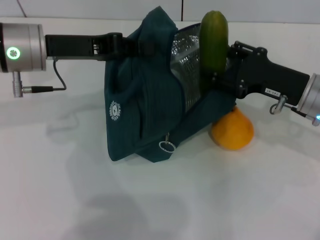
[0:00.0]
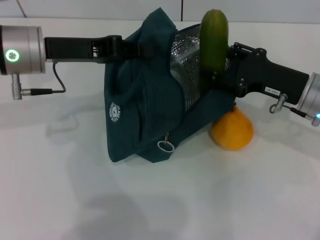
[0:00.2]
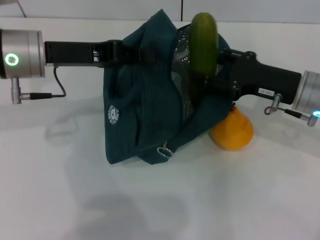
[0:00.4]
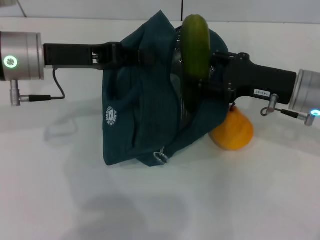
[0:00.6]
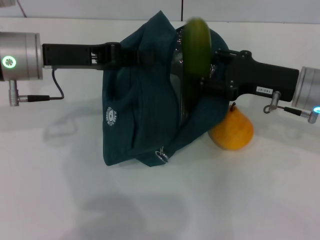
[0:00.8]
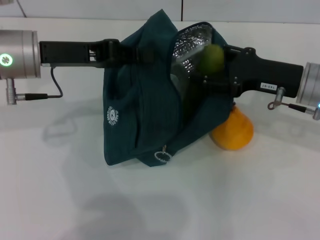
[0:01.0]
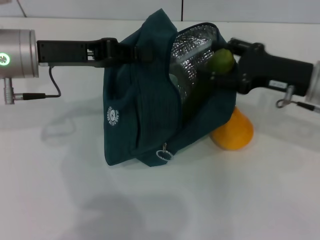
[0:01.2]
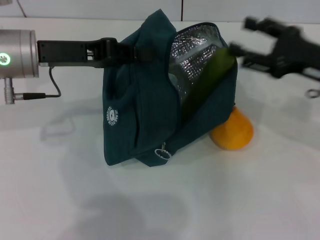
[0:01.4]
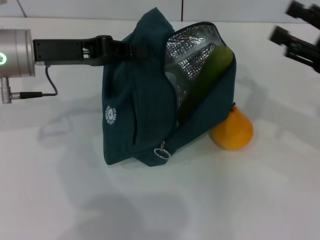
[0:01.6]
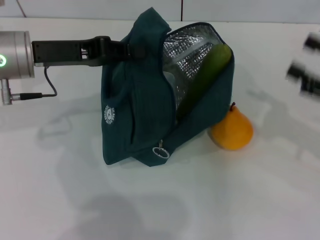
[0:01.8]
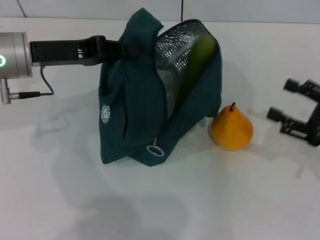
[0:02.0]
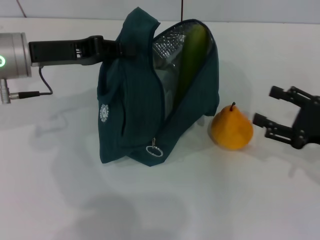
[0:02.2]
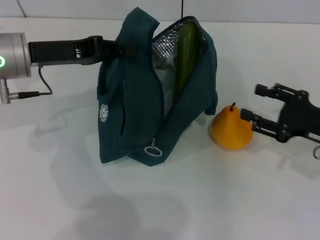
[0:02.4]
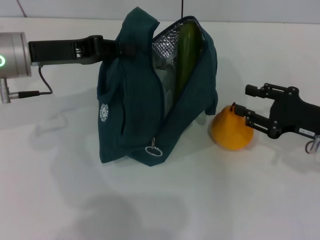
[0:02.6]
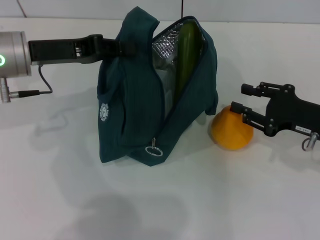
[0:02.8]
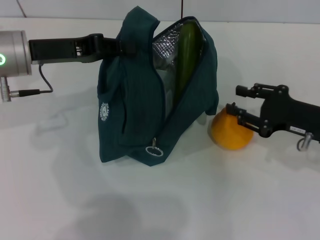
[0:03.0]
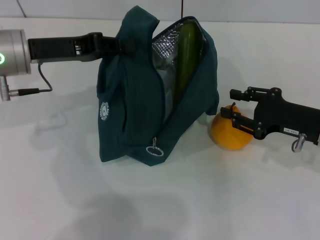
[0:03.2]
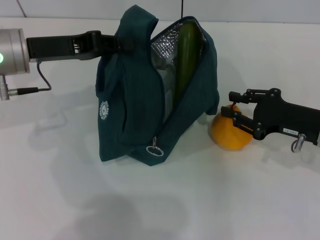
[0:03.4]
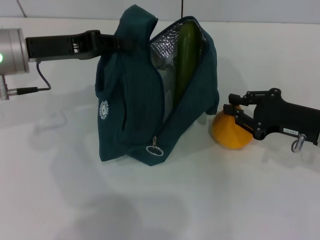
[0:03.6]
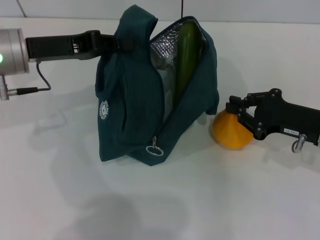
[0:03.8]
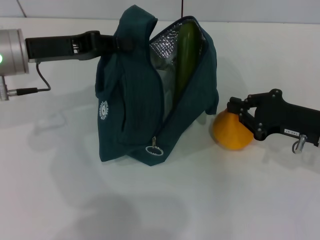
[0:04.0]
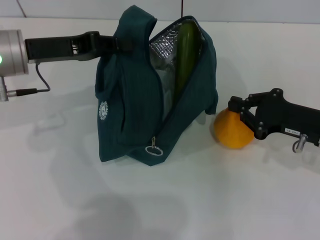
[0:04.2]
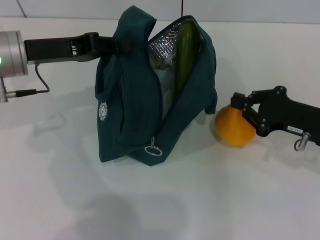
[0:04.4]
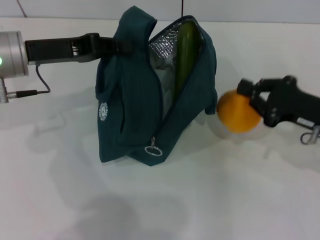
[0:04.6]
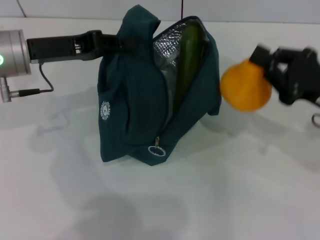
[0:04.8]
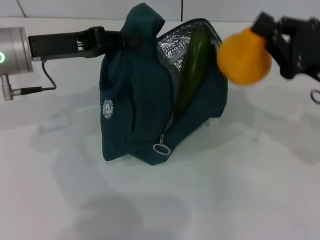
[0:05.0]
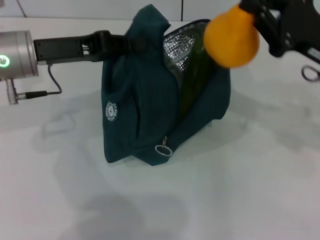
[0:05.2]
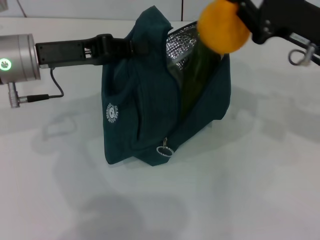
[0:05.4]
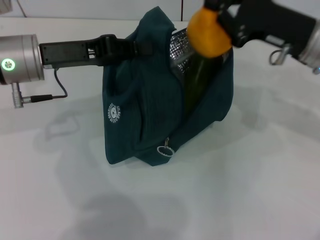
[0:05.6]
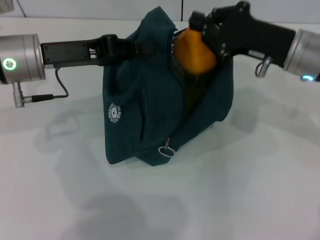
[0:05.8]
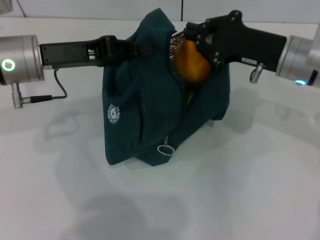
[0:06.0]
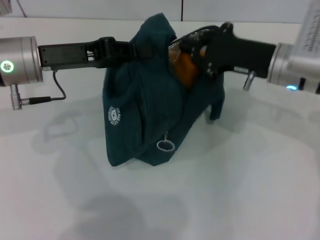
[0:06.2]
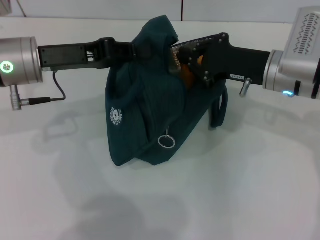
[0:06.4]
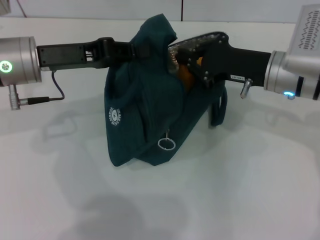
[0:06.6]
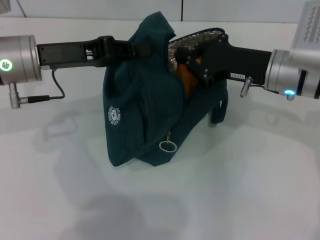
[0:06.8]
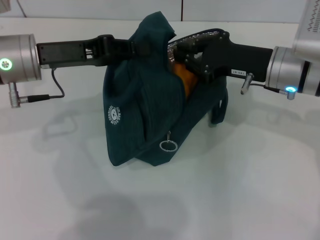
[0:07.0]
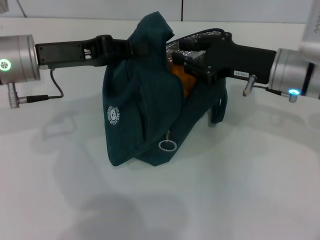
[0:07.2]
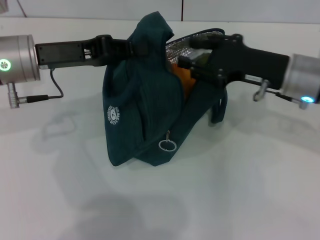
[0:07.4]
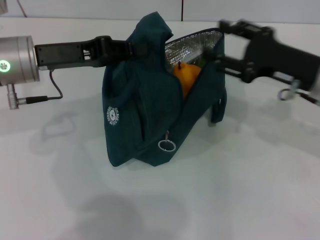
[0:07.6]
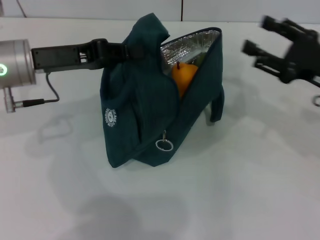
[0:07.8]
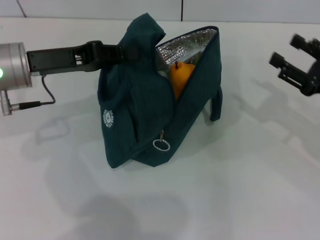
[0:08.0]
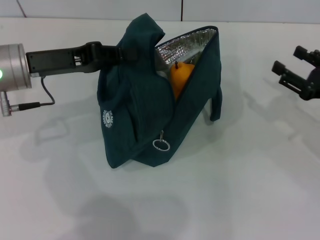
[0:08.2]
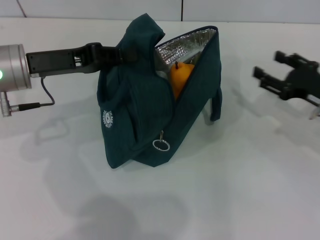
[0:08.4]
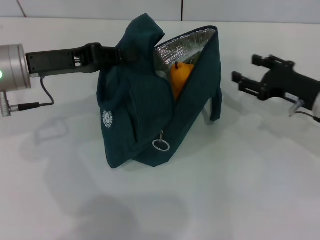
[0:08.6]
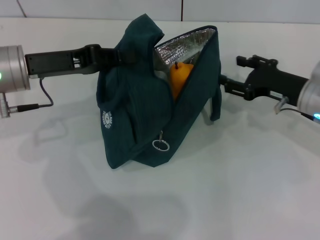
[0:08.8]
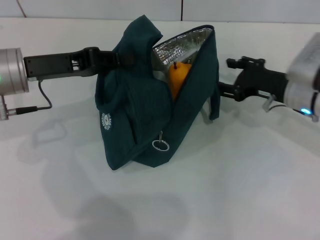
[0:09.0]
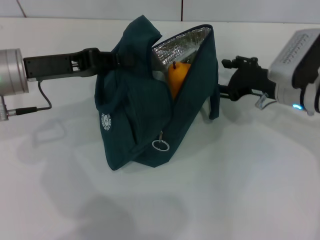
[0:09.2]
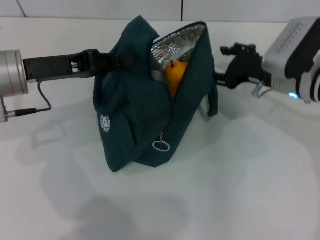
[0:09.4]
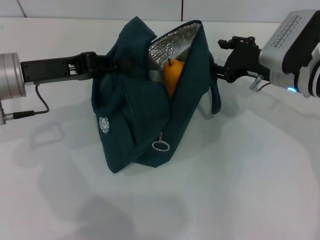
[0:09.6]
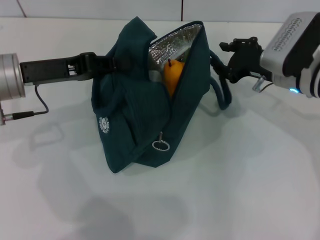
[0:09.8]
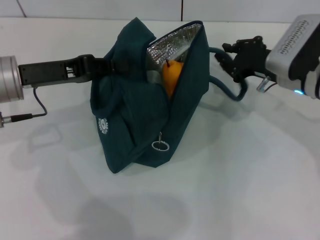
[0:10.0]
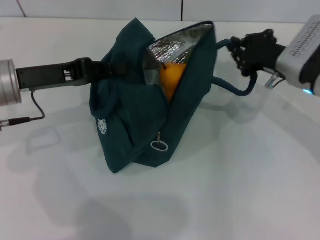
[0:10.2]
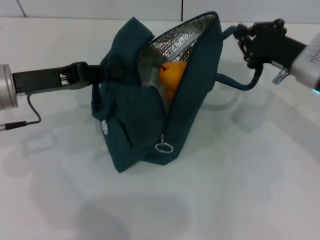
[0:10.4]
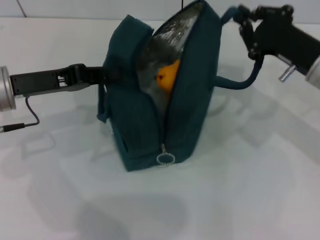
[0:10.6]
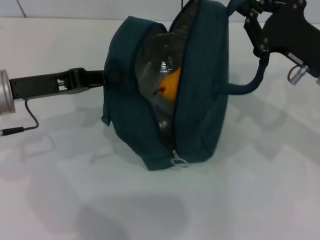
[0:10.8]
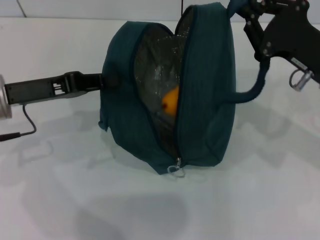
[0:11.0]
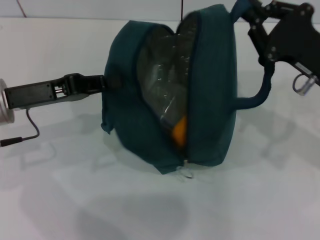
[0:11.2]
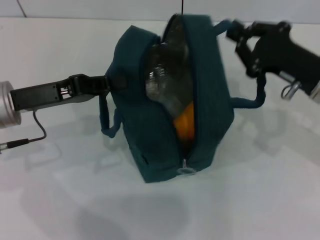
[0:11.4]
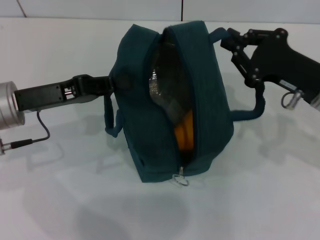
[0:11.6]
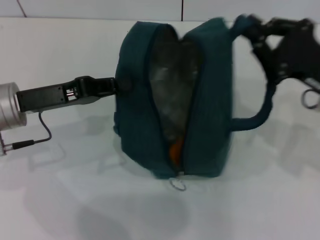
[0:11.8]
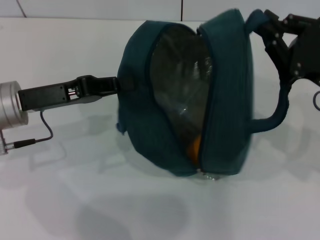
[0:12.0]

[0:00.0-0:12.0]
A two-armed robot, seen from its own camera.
Step, 0:01.4 to 0:04.2: Grab the pear with your right hand.
Step, 0:04.4 to 0:07.2: Secure the lunch bag with your left hand.
0:00.0 to 0:01.6: The right gripper travels to the right and upward by roughly 10 cm.
0:01.6 to 0:03.0: The right gripper travels downward by about 10 cm, and closes its fingers.
0:03.0 to 0:04.4: The right gripper closes up.
0:04.4 to 0:06.0: The right gripper heads to the left, upward and forward, covering roughly 10 cm.
0:06.0 to 0:07.6: The right gripper changes place by some 5 cm, and opens its fingers.
0:07.6 to 0:09.0: The right gripper travels downward by about 5 cm, and goes to the right and returns, approximately 10 cm each way.
0:09.0 to 0:10.4: The right gripper closes.
0:10.4 to 0:12.0: The right gripper is displaced backward by some 10 cm.

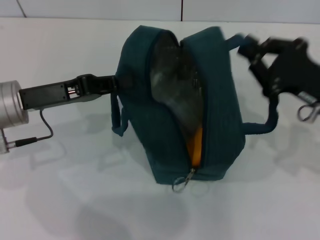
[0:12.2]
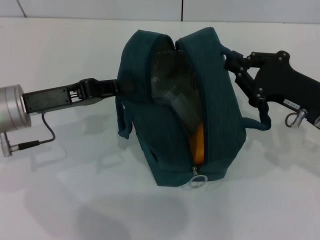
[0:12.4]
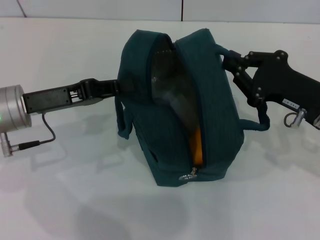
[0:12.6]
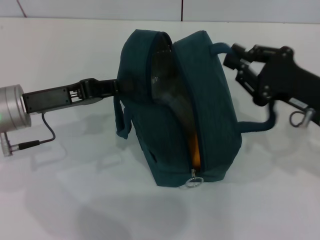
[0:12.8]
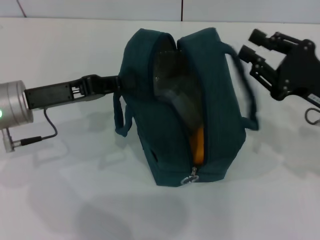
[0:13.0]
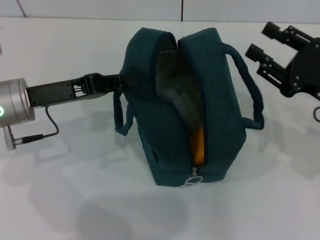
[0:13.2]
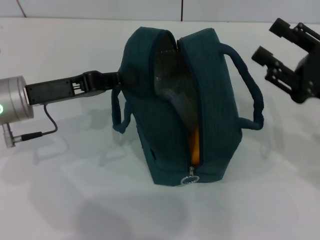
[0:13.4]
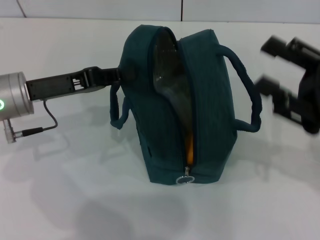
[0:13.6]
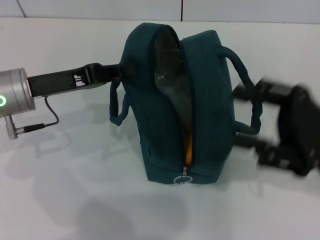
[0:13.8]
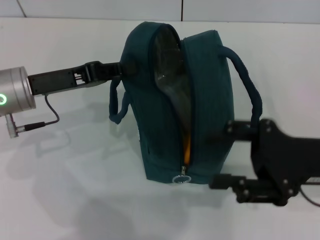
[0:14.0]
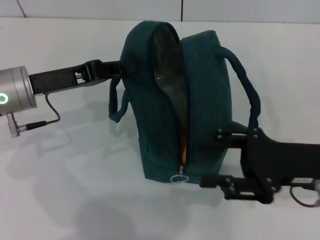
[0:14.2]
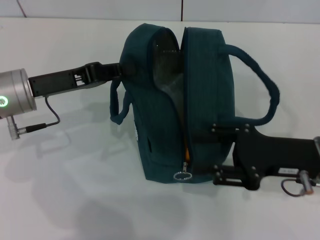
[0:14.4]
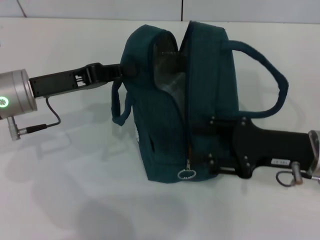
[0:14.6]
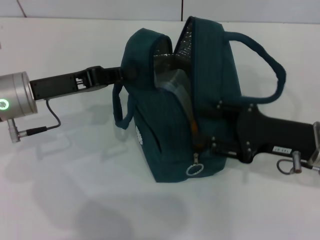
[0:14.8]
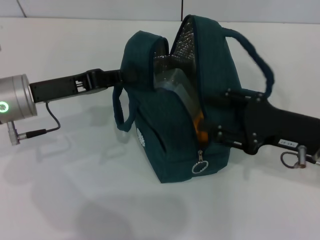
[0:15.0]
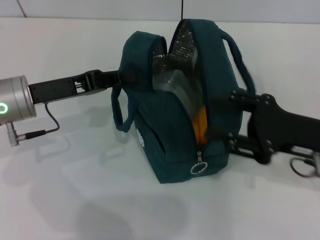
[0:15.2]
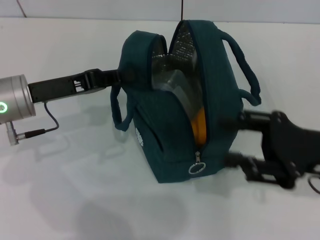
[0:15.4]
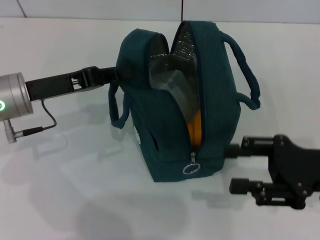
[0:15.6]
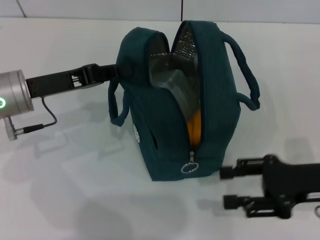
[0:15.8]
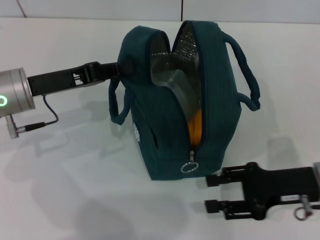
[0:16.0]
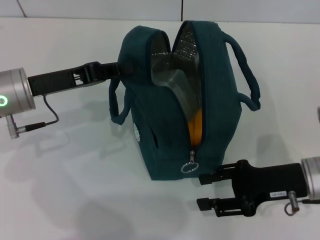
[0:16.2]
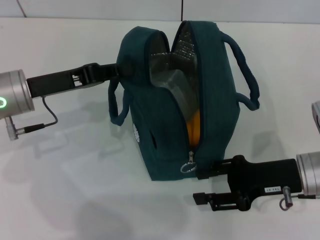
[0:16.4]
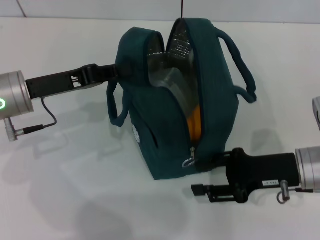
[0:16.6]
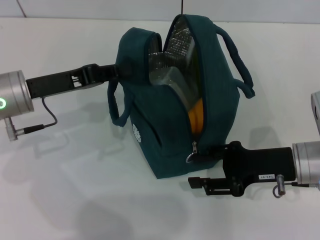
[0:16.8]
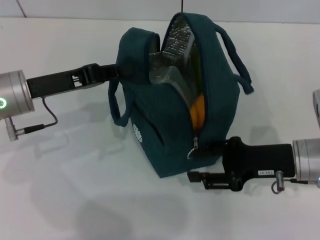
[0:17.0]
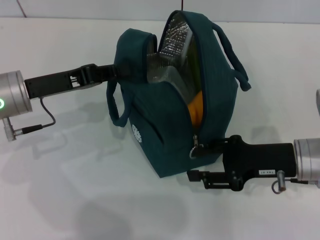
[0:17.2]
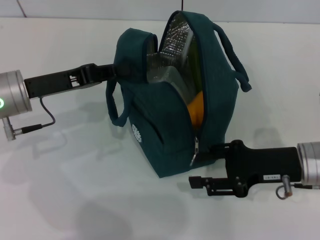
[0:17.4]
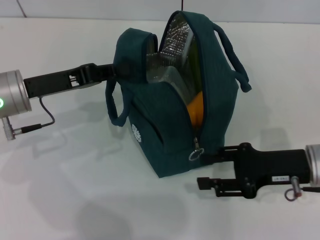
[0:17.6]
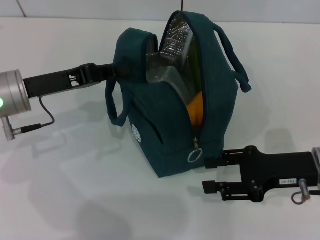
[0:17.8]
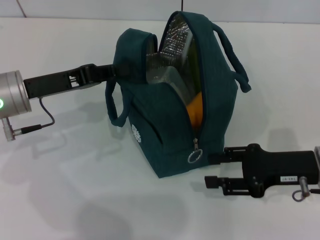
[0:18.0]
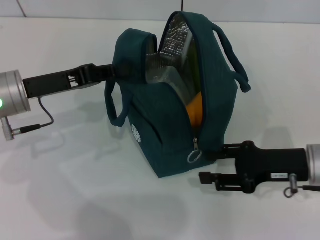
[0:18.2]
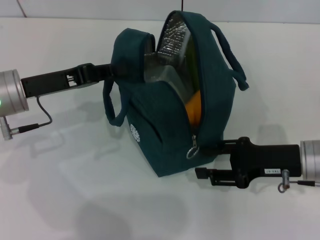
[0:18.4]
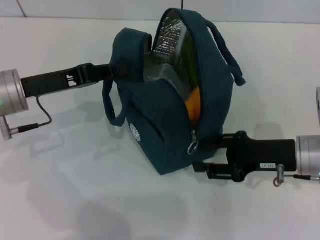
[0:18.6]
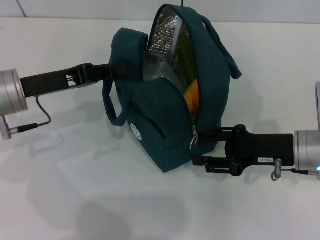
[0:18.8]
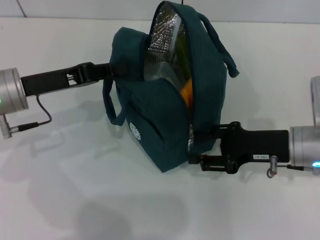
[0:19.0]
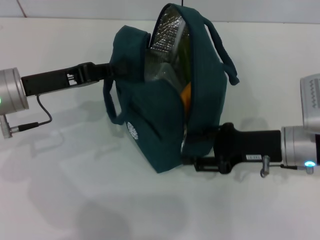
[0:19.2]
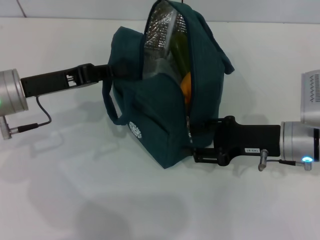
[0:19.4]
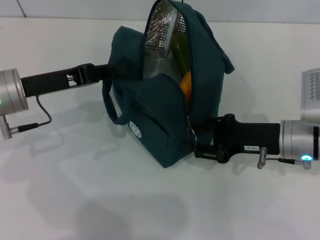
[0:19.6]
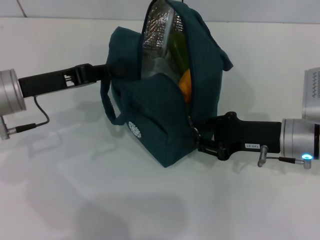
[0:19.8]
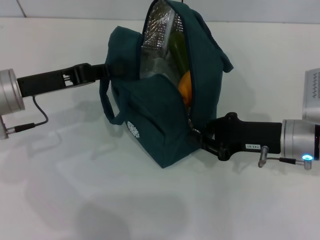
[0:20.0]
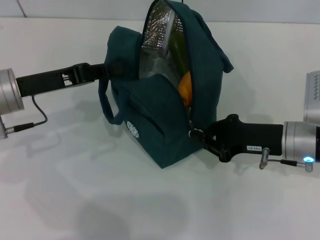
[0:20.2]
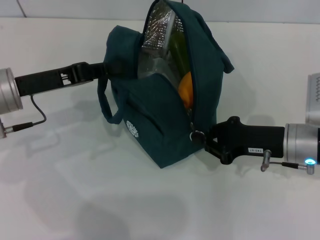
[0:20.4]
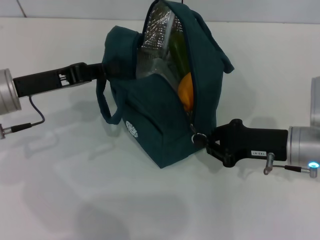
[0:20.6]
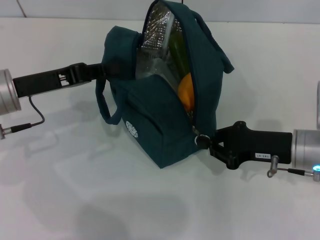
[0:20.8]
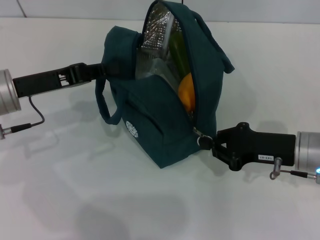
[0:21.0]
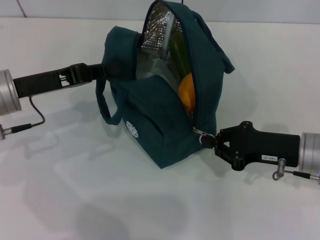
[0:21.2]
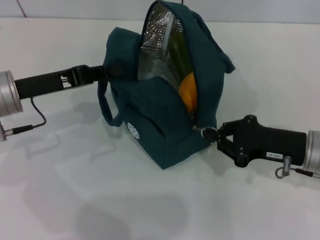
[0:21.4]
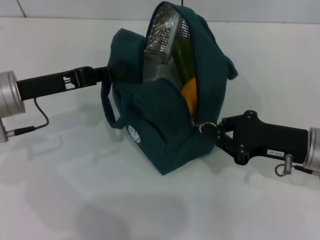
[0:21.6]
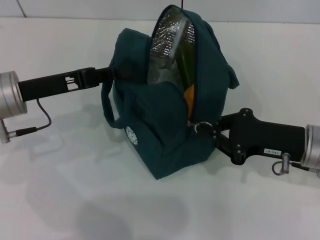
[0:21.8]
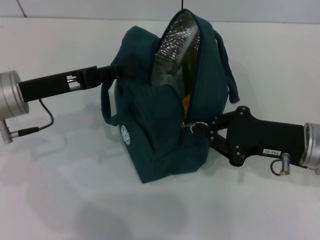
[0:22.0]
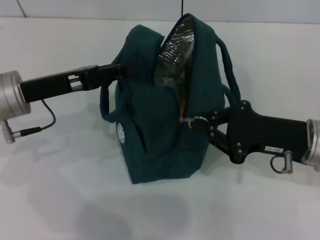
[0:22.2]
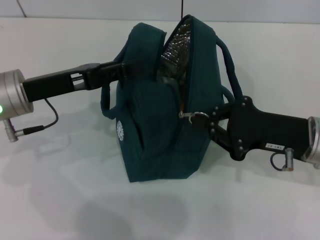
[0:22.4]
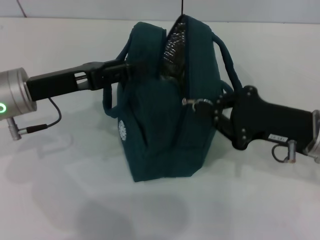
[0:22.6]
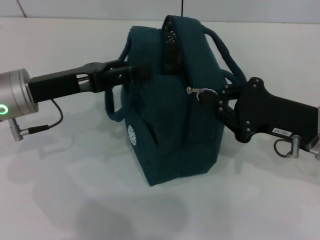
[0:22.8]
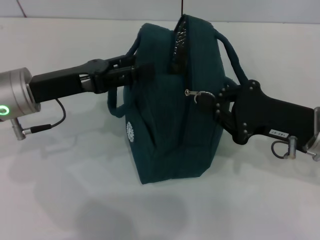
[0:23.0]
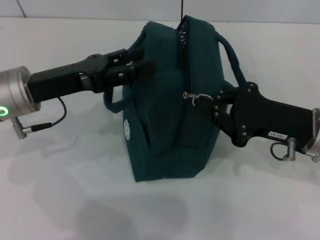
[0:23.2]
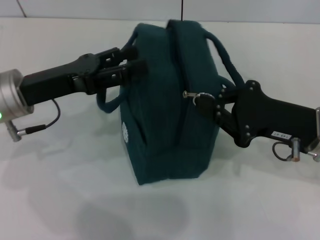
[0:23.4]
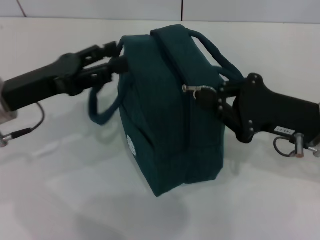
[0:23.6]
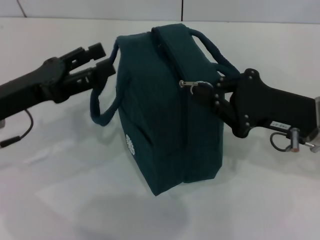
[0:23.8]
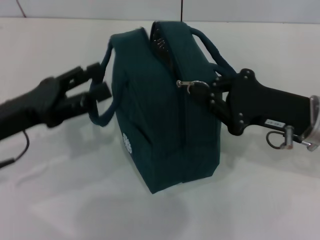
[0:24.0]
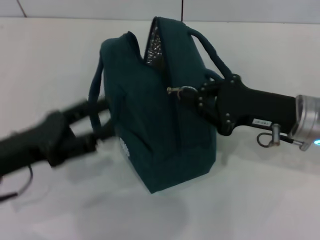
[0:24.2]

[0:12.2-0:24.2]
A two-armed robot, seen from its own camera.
0:12.2 to 0:13.8: The right gripper moves approximately 5 cm, and opens.
0:16.6 to 0:18.2: There are only small adjustments of the grippers.
0:19.8 to 0:21.2: The right gripper closes.
0:21.2 to 0:22.6: The left gripper opens up.
0:22.6 to 0:24.2: The left gripper heads backward, covering some 10 cm, and opens up.
